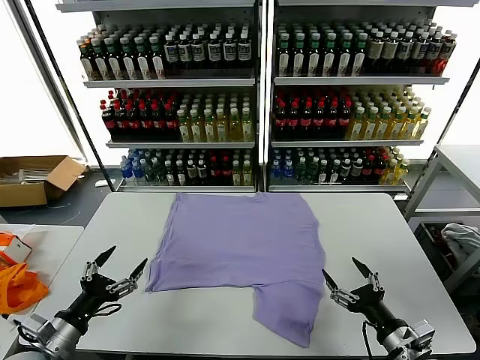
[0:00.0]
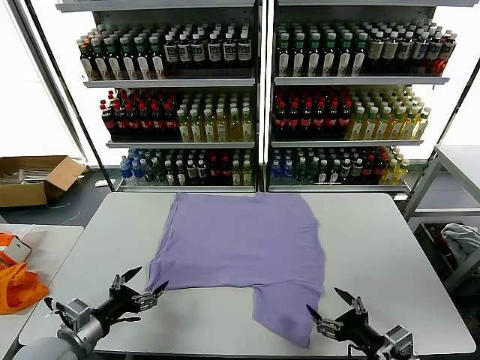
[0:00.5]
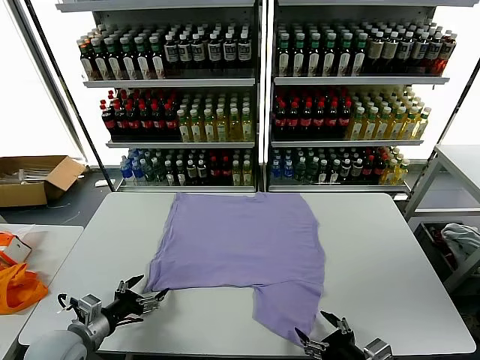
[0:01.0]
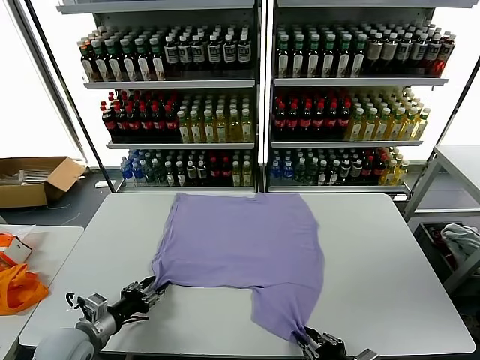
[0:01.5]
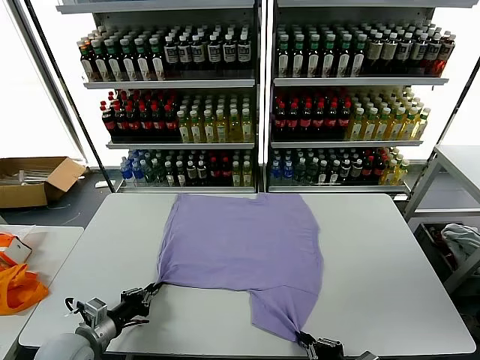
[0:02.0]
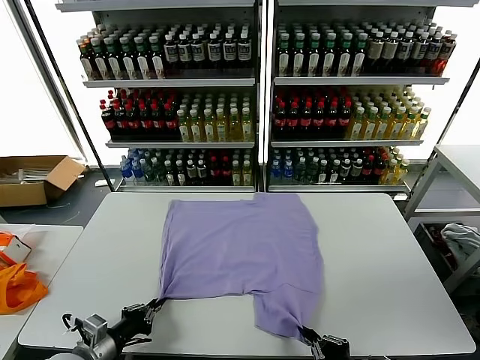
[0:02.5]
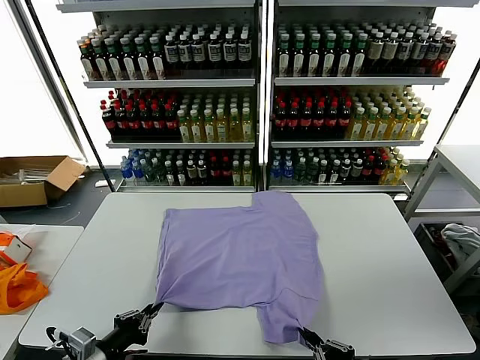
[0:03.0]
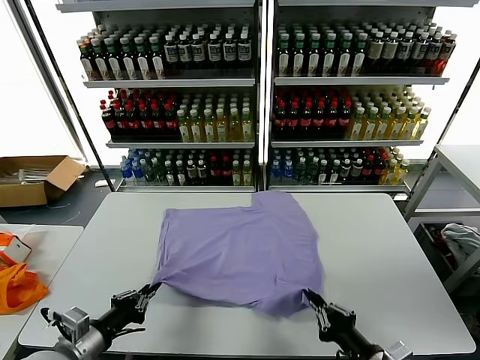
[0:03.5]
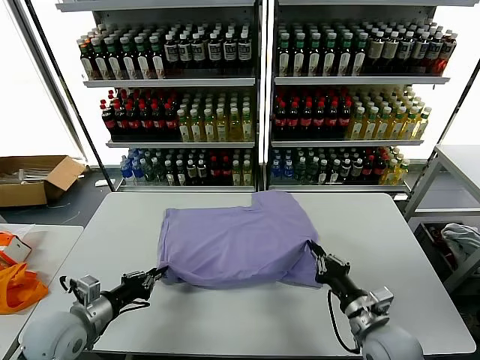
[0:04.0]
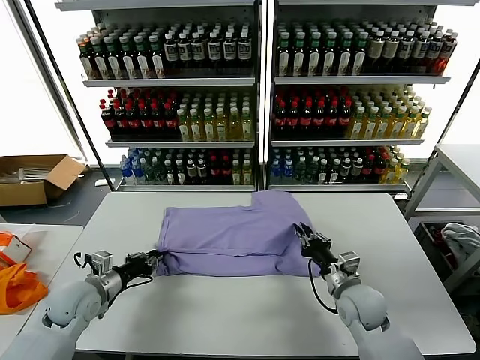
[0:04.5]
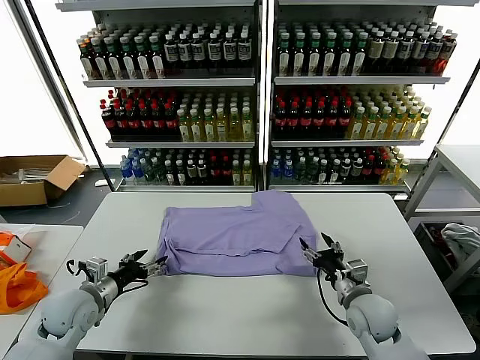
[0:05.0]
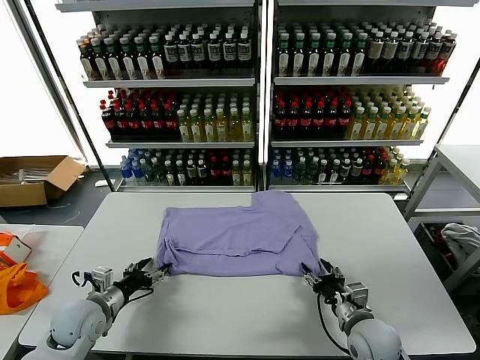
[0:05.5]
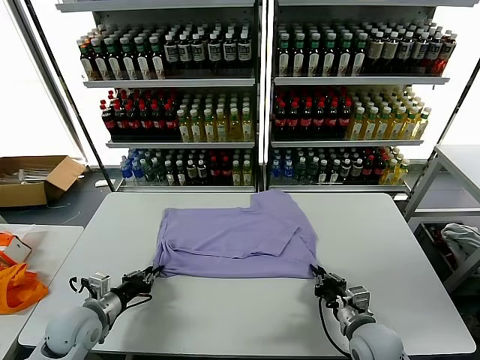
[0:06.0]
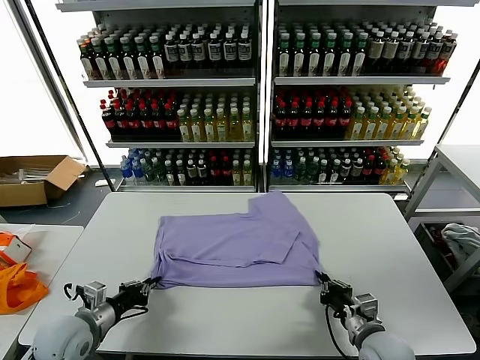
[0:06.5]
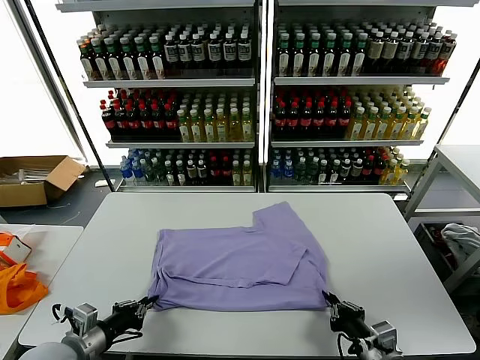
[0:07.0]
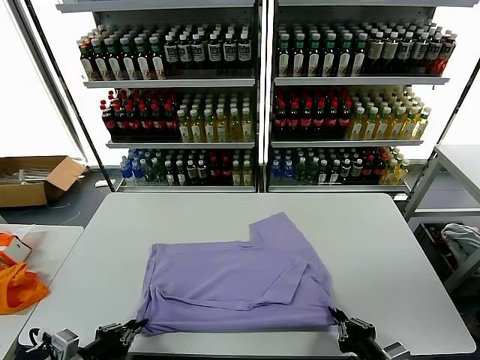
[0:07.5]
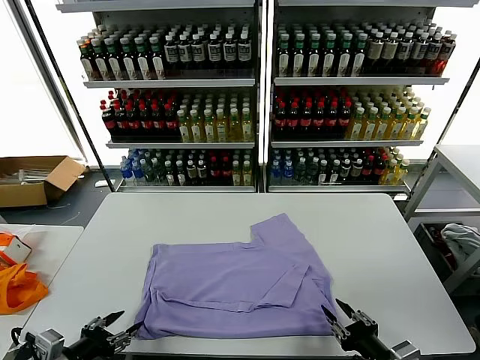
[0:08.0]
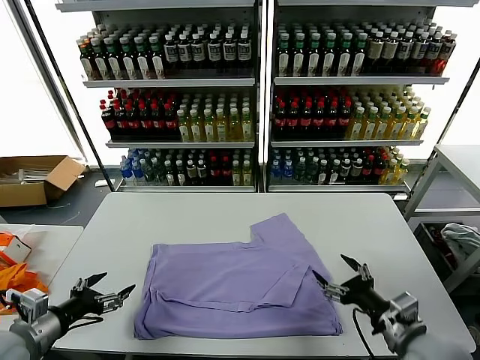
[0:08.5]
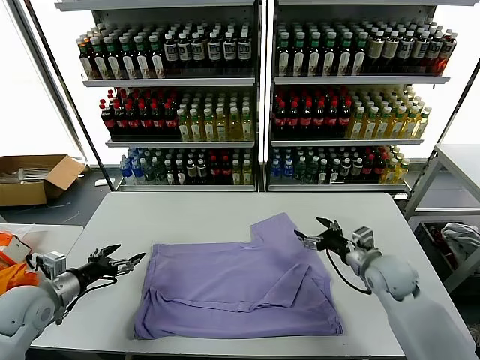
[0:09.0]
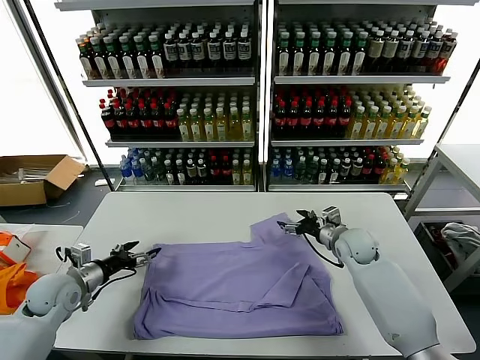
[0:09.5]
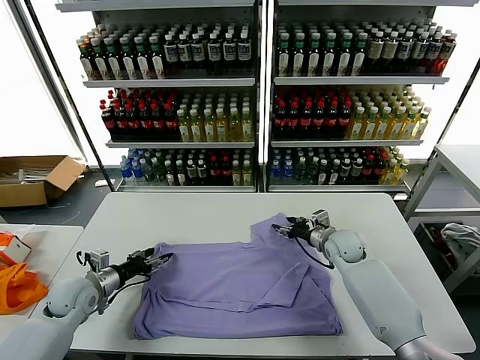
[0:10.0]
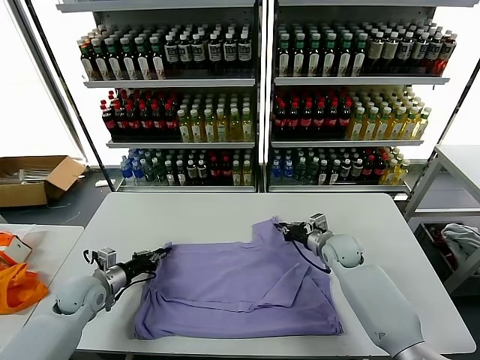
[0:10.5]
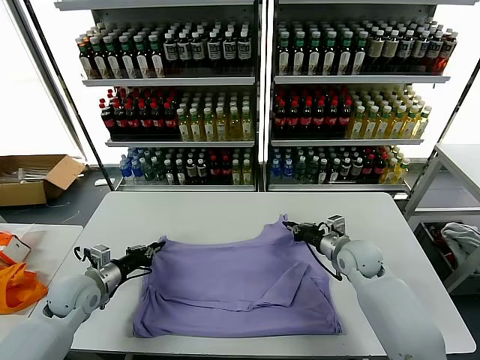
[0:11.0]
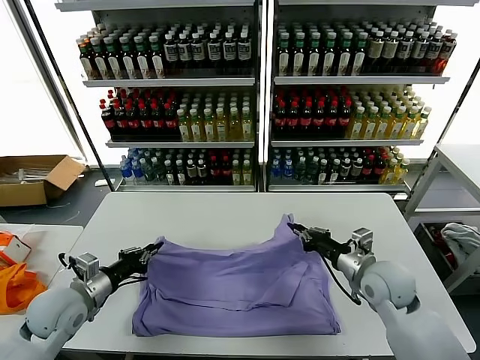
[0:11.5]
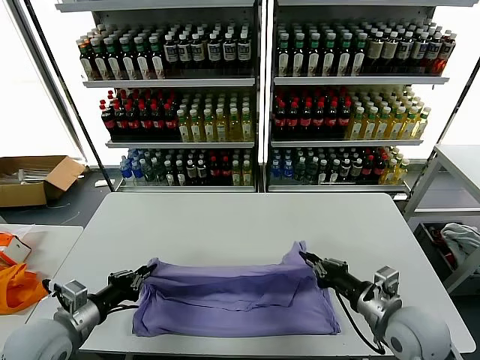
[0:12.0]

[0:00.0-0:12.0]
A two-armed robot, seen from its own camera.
Task of the whole recording: fold and organize the clothes.
Step, 0.0 to 1.5 s: use both grippers simultaneously to clamp the lower edge of the clothing fabric.
Step, 2.0 to 4.5 s: use both grippers to drag the lower edge of the fabric forward and fold it over the upper edge.
Step, 5.0 to 7.5 s: Drag the clothes downward with both gripper.
Step, 8.0 to 10.5 s: use both grippers simultaneously to clamp the upper edge of the clothing fabric.
2.0 to 4.0 s: The left gripper travels upward by approximately 5 cm, and reaches some 10 cm backward, then returns. The right gripper goes approximately 15 cm forward.
4.0 to 6.0 s: The left gripper ends up about 5 cm from where it was, and opens, then closes once more, while the right gripper reaches approximately 5 cm forward, then returns, and opens and closes again.
6.0 to 8.0 s: Both grippers travel together backward and upward, some 15 cm. The right gripper opens up, while the left gripper opens.
8.0 to 10.0 s: The left gripper heads forward, covering some 20 cm. The right gripper moves forward, roughly 35 cm, and opens, then closes again.
10.0 to 12.0 s: The right gripper goes approximately 25 cm backward, and closes, while the left gripper heads backward and upward, covering about 15 cm, and closes.

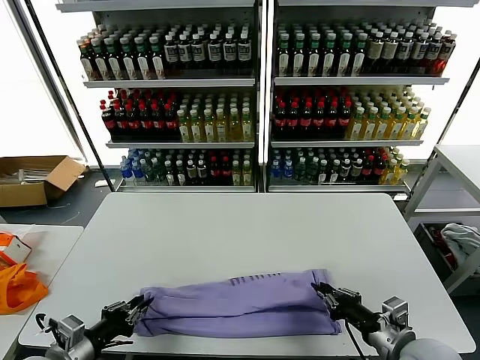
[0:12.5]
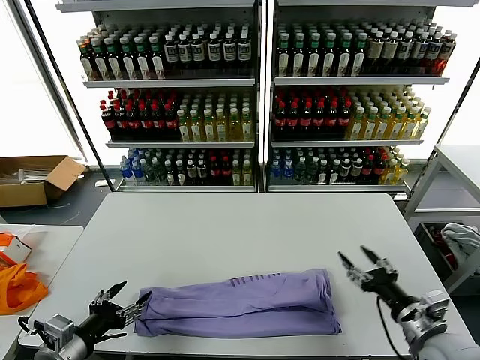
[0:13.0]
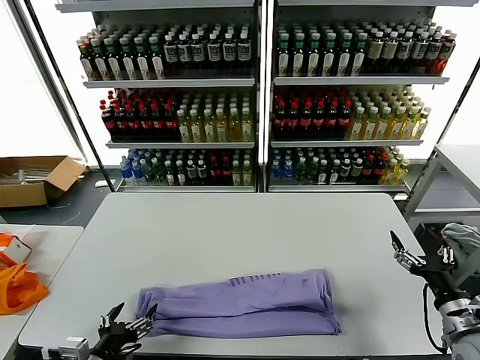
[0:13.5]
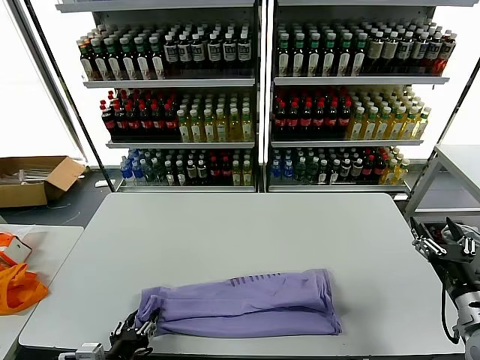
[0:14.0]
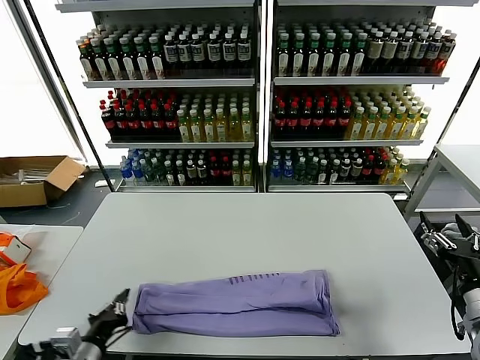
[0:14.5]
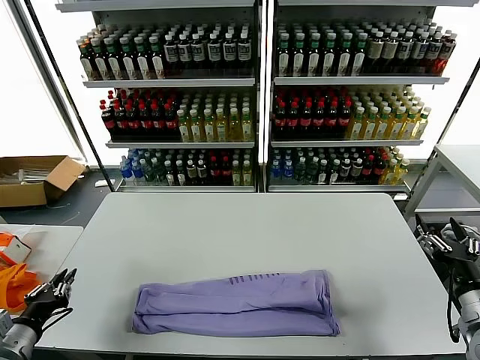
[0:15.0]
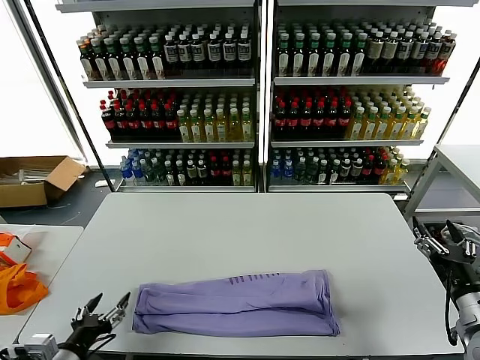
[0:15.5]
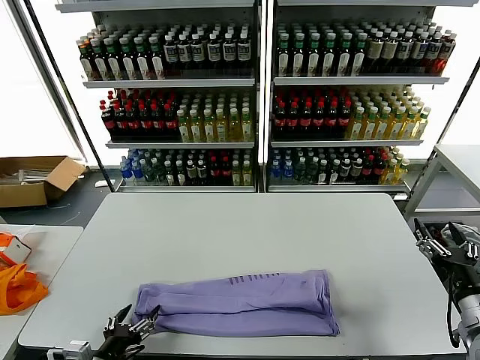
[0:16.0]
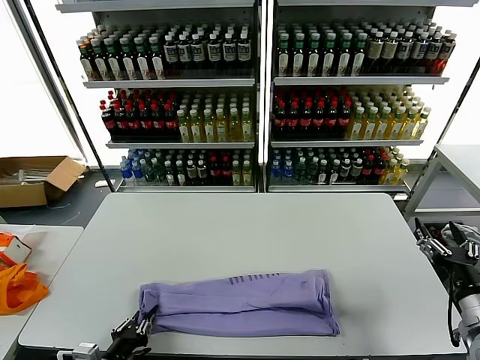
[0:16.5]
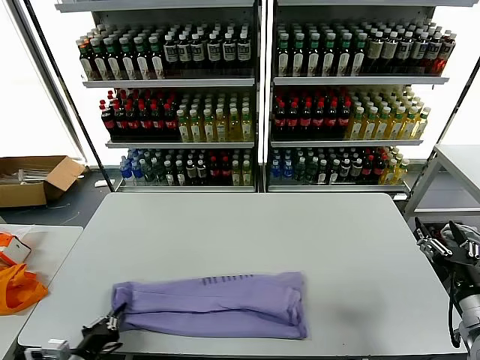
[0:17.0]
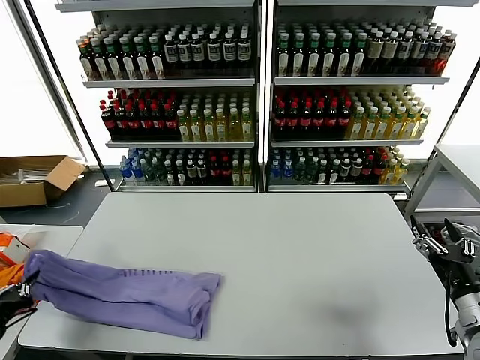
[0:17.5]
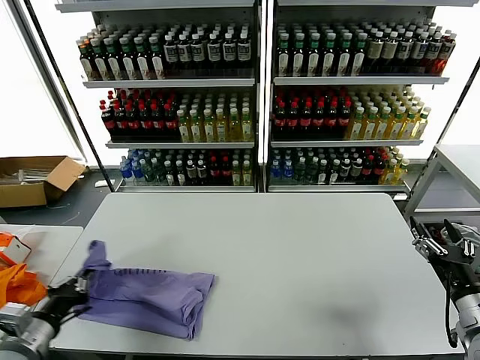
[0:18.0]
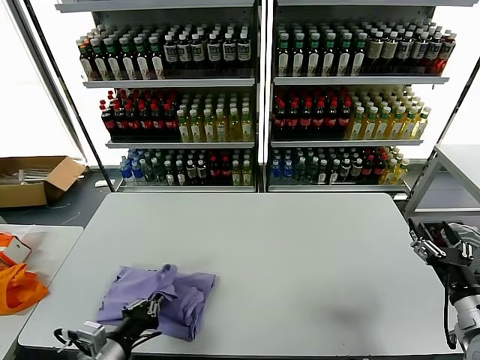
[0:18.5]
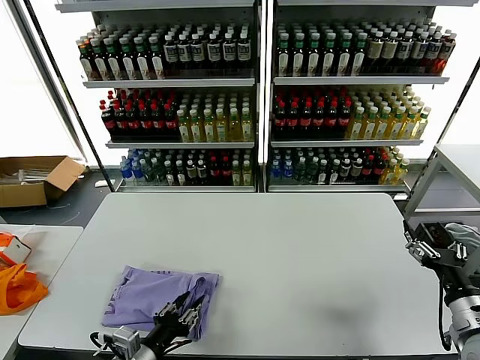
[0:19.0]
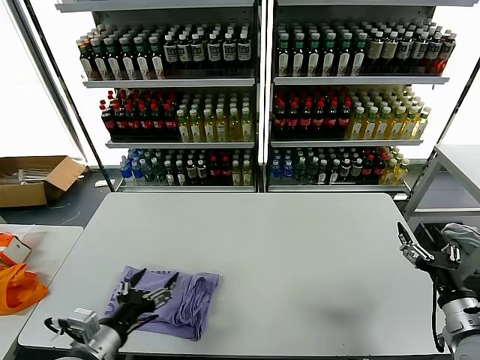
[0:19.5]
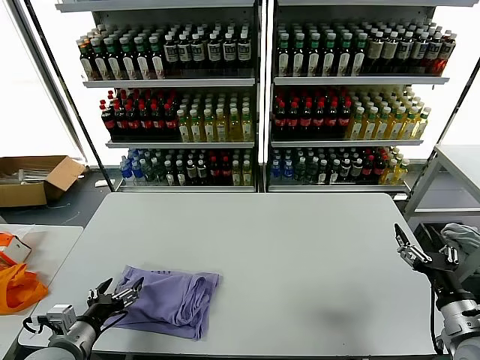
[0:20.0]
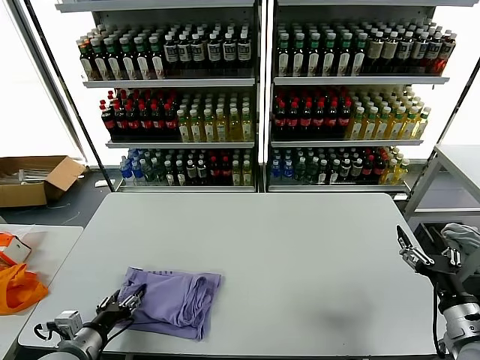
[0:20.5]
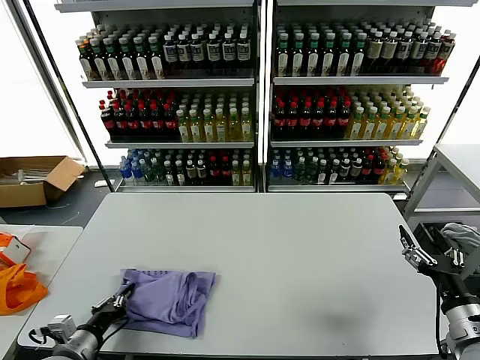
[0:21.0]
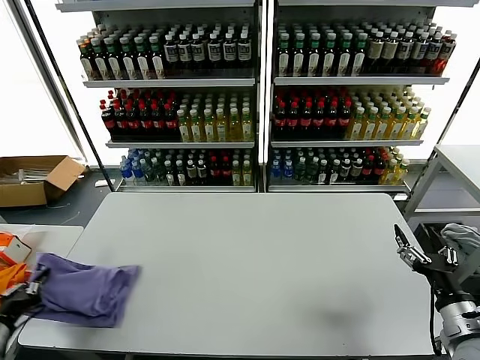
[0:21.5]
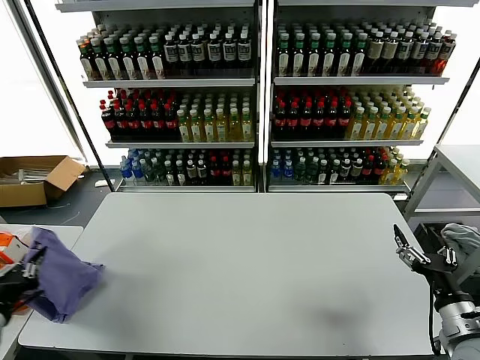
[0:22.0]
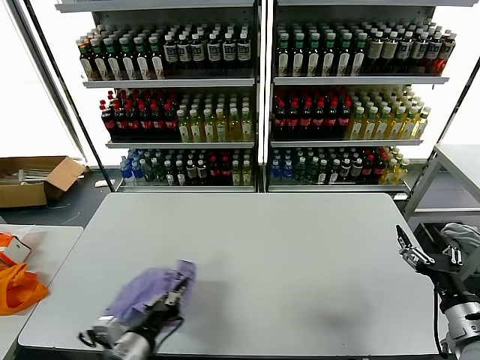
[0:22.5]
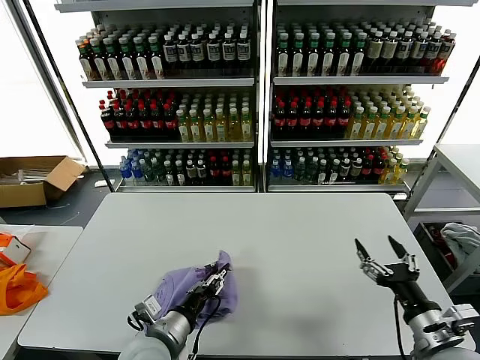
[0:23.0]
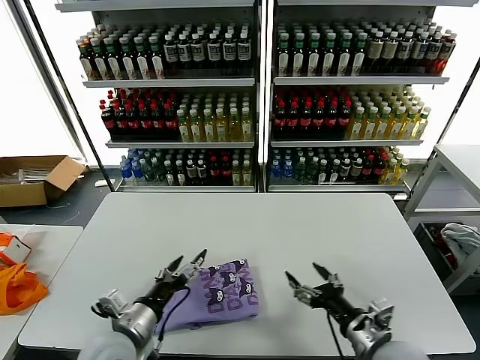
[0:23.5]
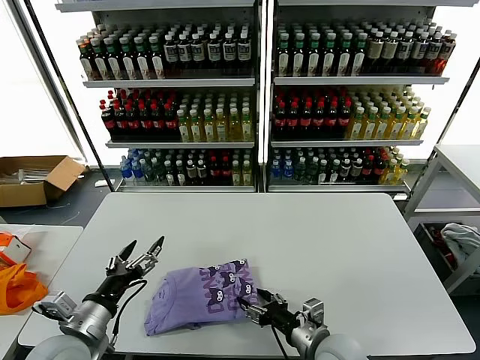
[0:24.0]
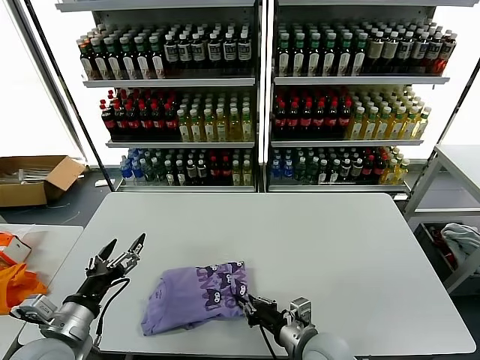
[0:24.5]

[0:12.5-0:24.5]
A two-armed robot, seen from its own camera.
Task of the whole recording: fold and organize the clothes.
Step, 13.0 to 16.5 s: use the left gripper to clamp the left edge of the fabric.
Step, 17.0 to 19.0 s: use the left gripper to drag the left edge of the fabric to the left and folds it over the right edge.
Step, 19.5 to 23.0 s: Flip the folded clothes over with left gripper.
12.5 to 14.5 s: The right gripper shifts about 15 cm to the right, and opens its fingers, while the left gripper opens and closes again.
14.5 to 16.5 s: The left gripper travels to the left and back again, some 10 cm each way, and opens and closes again.
16.5 to 18.5 s: The left gripper shifts some 5 cm upward, and goes to the left and returns, approximately 20 cm each way.
18.5 to 20.5 s: The left gripper moves to the left, roughly 5 cm, and opens its fingers.
20.5 to 22.5 s: The left gripper heads to the right, covering some 10 cm, and closes its fingers.
22.5 to 24.5 s: The right gripper goes some 25 cm to the left, and closes its fingers, while the left gripper moves to the left, roughly 5 cm, and opens its fingers.

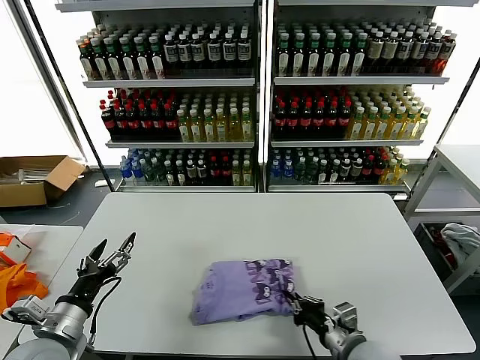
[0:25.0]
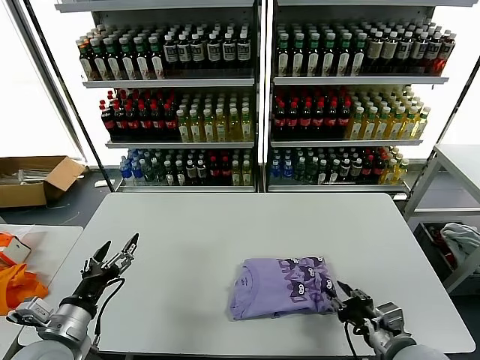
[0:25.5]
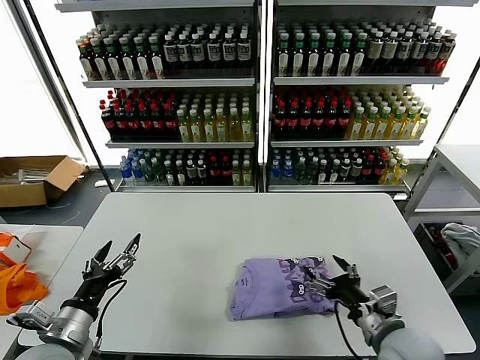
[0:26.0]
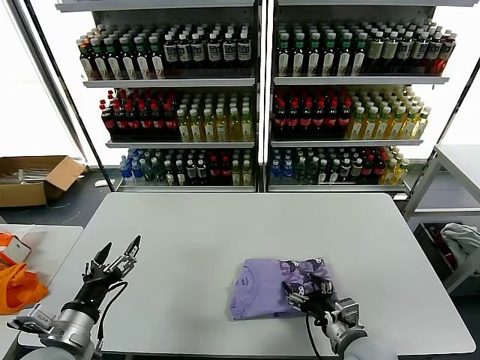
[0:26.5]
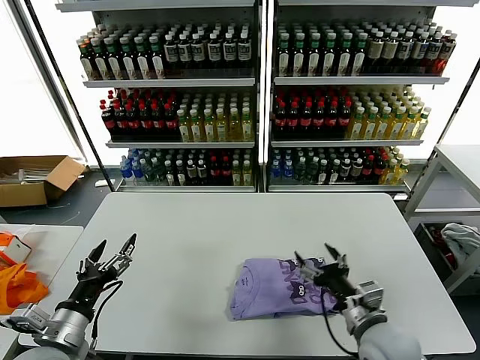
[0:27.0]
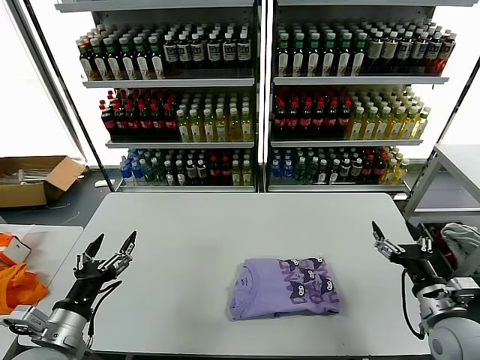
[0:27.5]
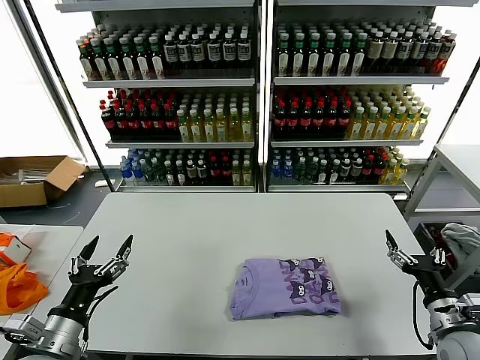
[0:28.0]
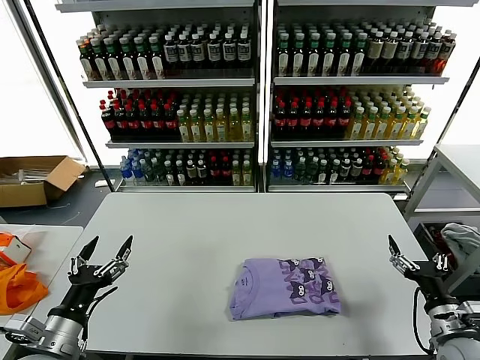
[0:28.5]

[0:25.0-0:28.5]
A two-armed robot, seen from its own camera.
Task of the whole recording: fold and organize the clothes.
25.0 to 27.0 s: The right gripper goes up and down, some 5 cm each way, reversing 2 times, and opens up.
27.0 to 28.5 s: The right gripper goes about 15 cm to the right.
